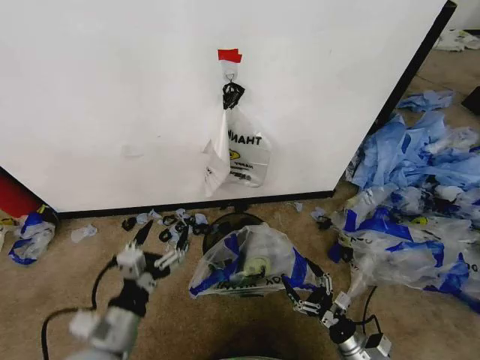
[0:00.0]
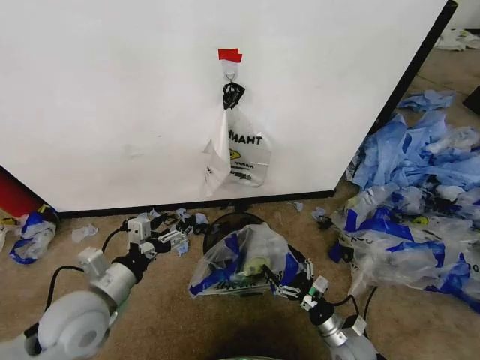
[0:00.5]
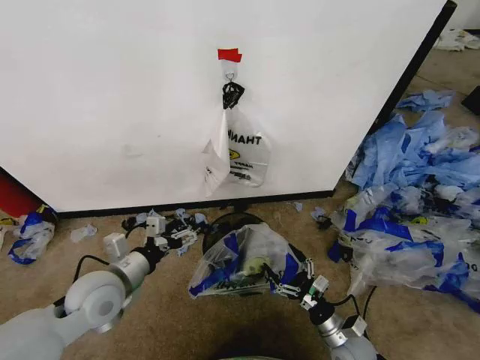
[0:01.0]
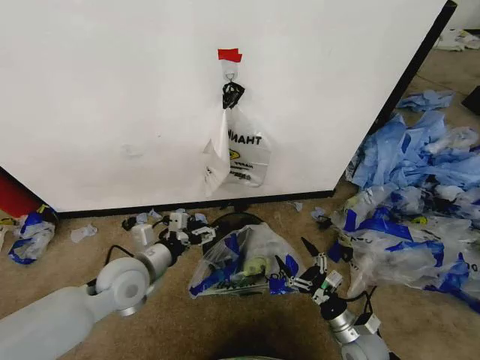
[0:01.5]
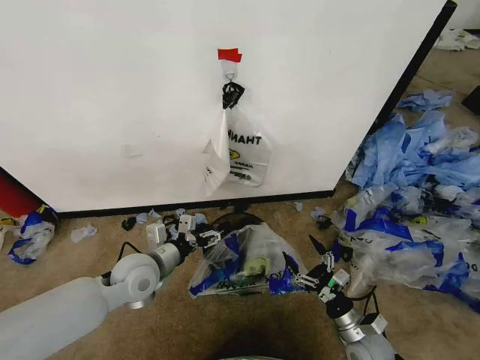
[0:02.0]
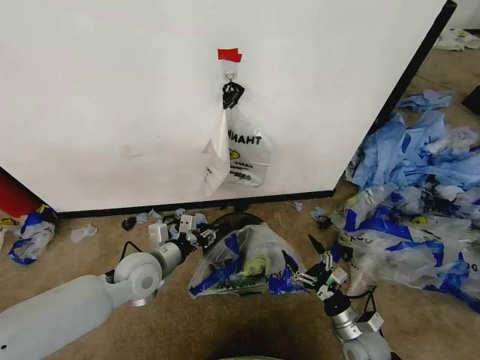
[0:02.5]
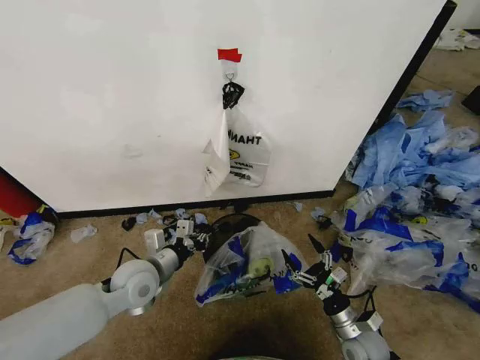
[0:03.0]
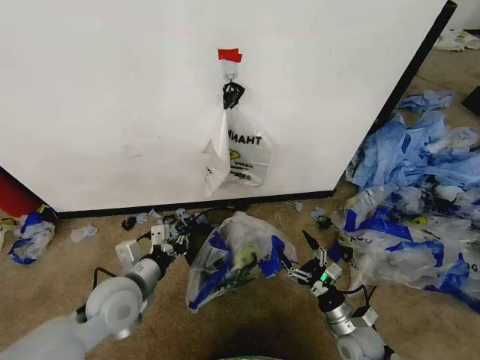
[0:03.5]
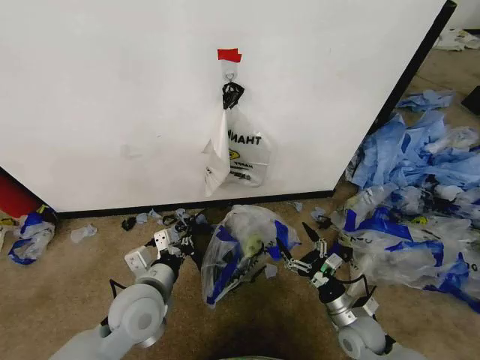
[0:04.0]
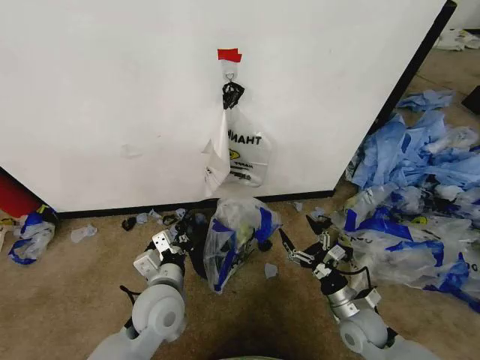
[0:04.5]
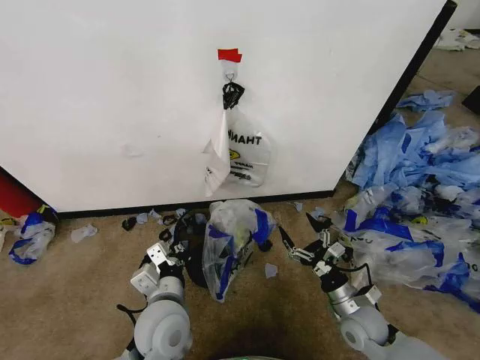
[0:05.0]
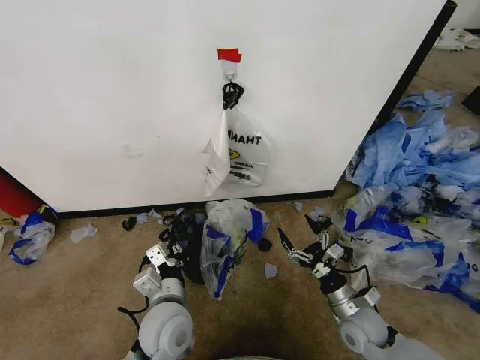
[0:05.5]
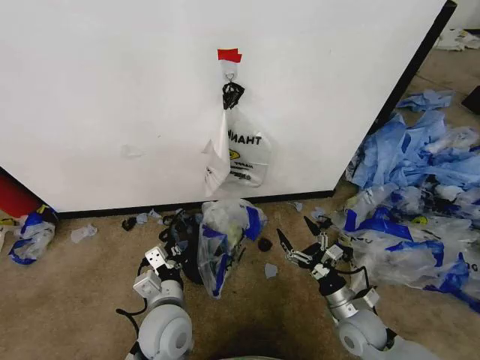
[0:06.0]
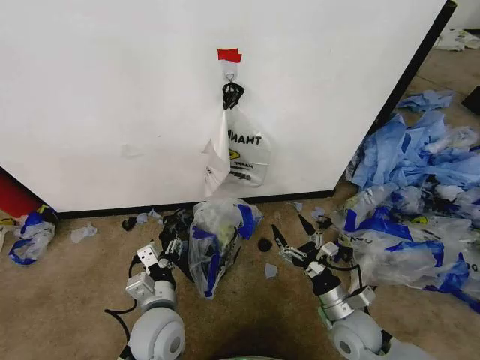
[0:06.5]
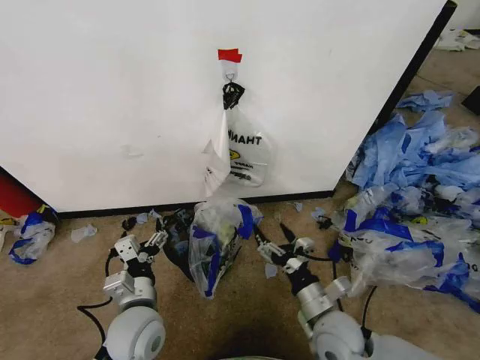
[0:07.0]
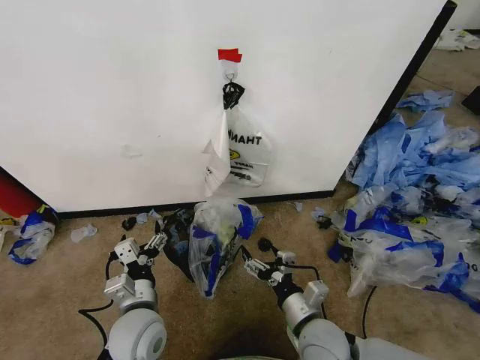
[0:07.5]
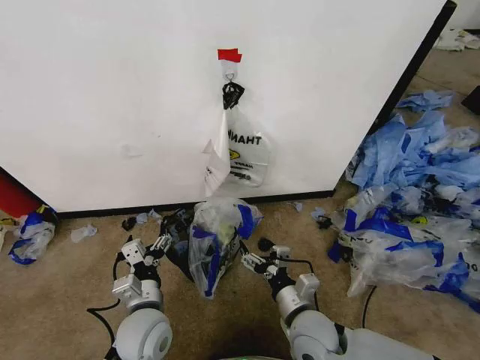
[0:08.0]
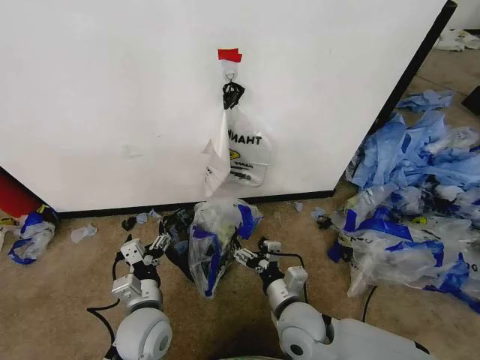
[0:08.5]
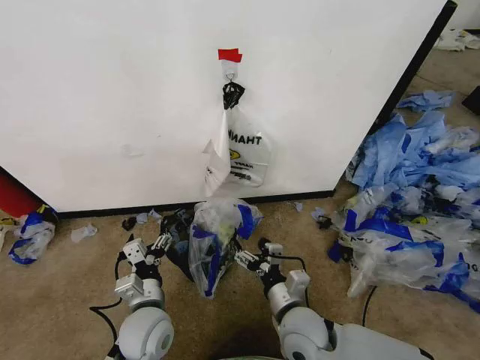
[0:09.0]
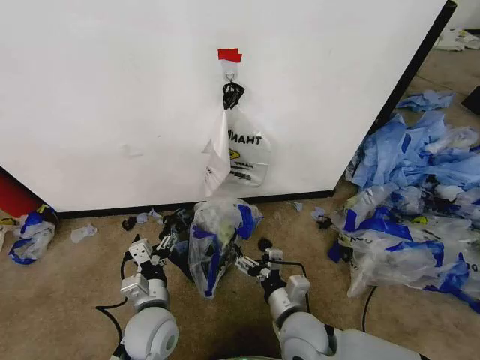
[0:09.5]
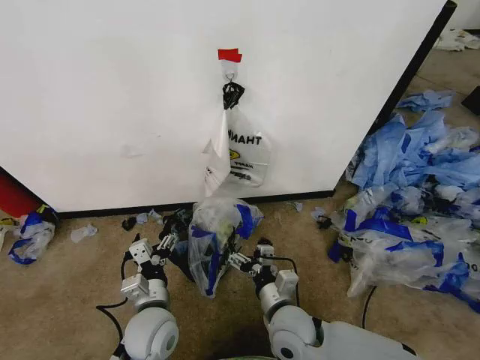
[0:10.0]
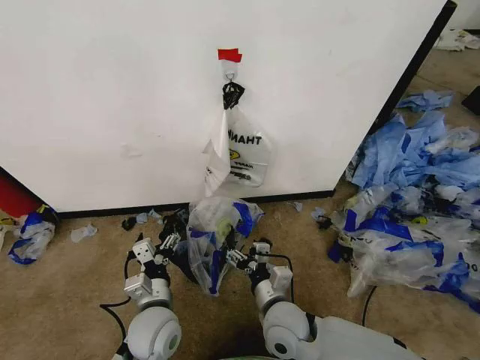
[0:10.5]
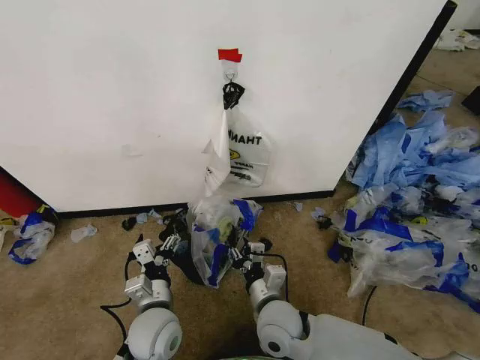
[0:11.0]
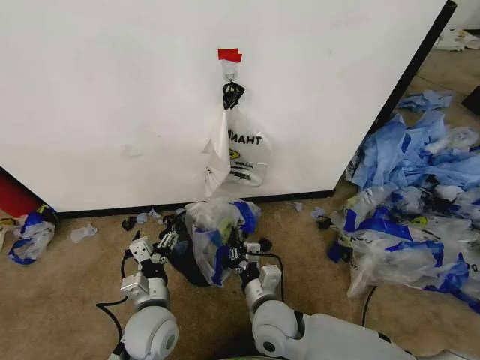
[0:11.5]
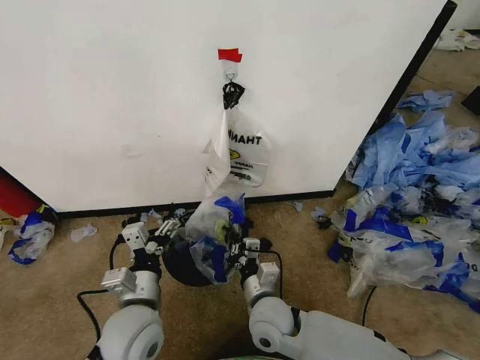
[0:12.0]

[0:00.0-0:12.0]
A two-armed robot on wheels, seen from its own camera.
Task of the whole recording: Pick up the garbage bag from the wall and place it over the trash bin.
0:00.0 to 0:02.0: The left gripper travels forward by approximately 20 cm. The right gripper shifts by approximately 5 cm.
0:02.0 to 0:04.0: The left gripper travels backward by some 10 cm, and closes.
0:04.0 to 0:06.0: The left gripper travels to the right by some 5 cm.
0:06.0 to 0:08.0: The right gripper goes approximately 15 cm to the left and upward; the left gripper opens.
0:08.0 to 0:10.0: The grippers make only small movements.
0:10.0 to 0:12.0: The left gripper shifts roughly 5 cm upward, while the right gripper closes.

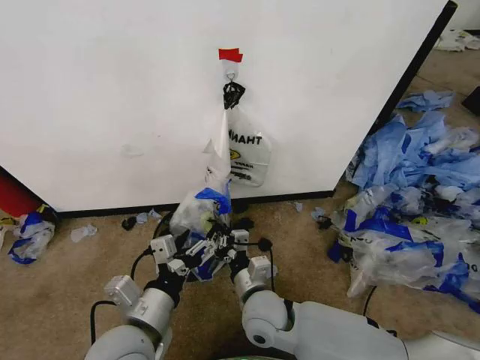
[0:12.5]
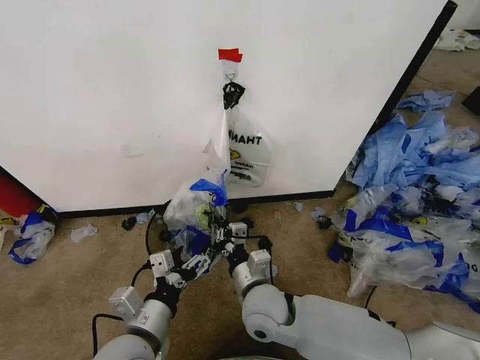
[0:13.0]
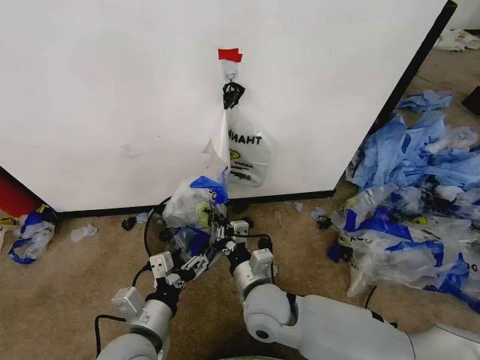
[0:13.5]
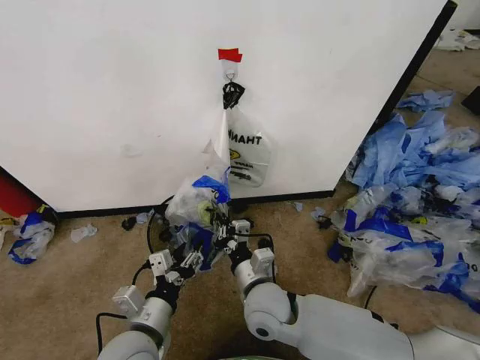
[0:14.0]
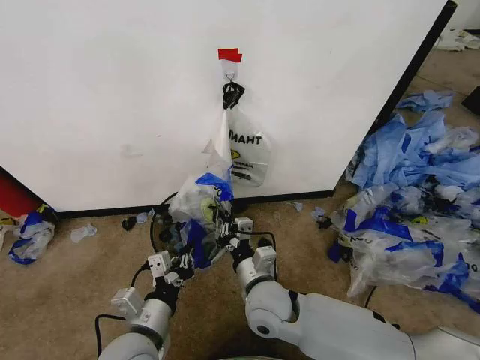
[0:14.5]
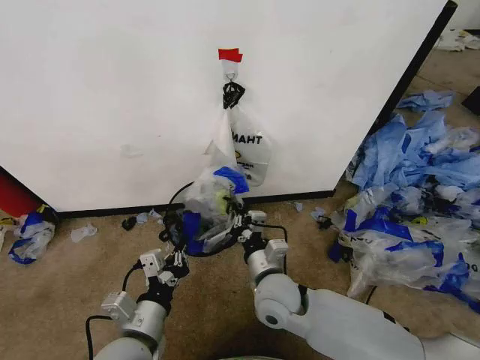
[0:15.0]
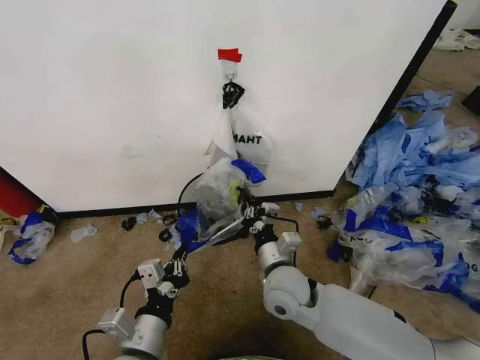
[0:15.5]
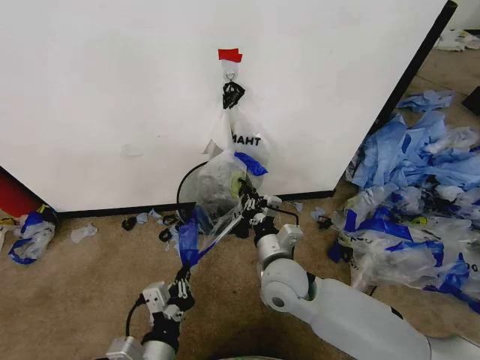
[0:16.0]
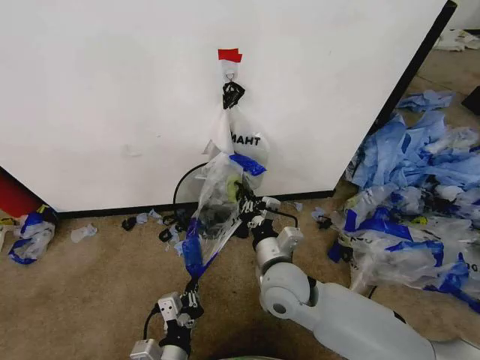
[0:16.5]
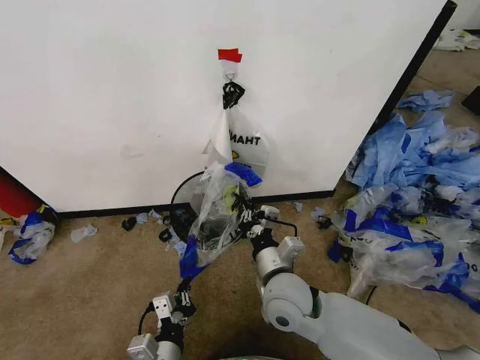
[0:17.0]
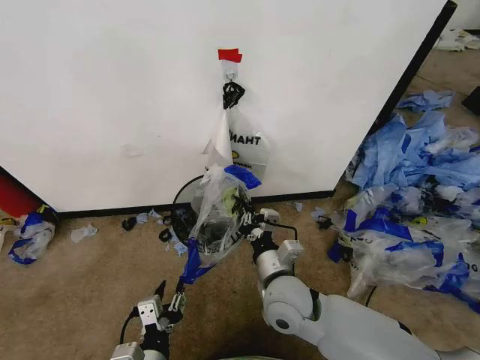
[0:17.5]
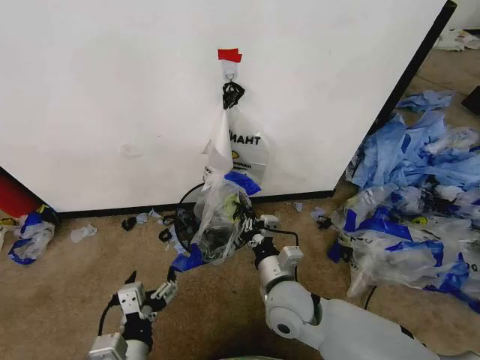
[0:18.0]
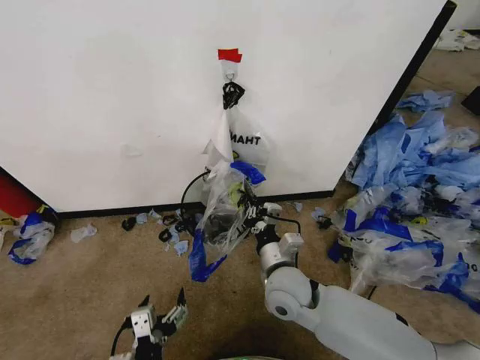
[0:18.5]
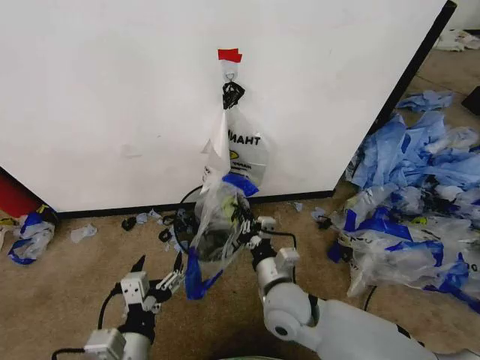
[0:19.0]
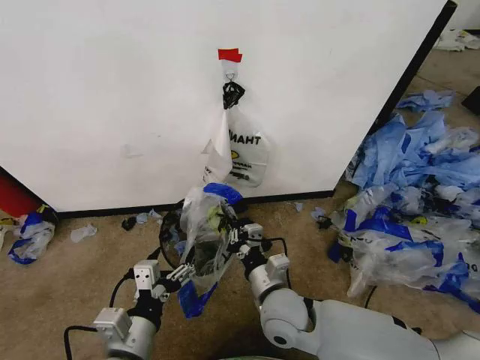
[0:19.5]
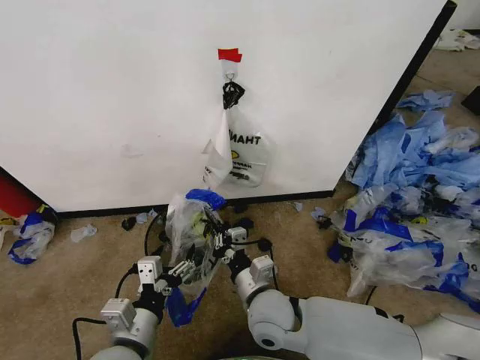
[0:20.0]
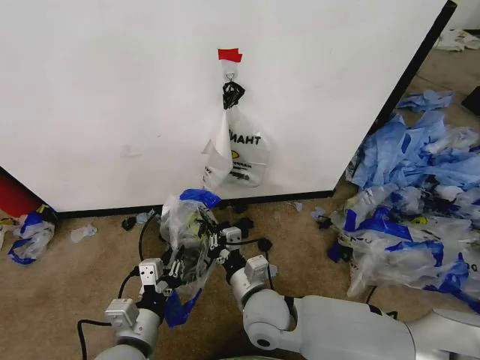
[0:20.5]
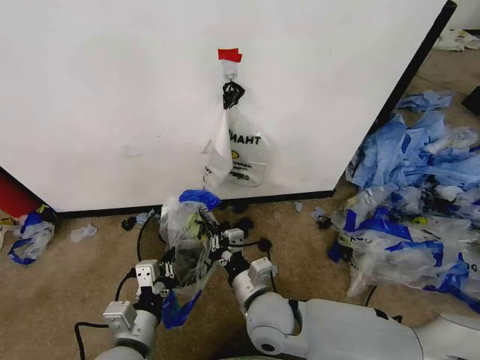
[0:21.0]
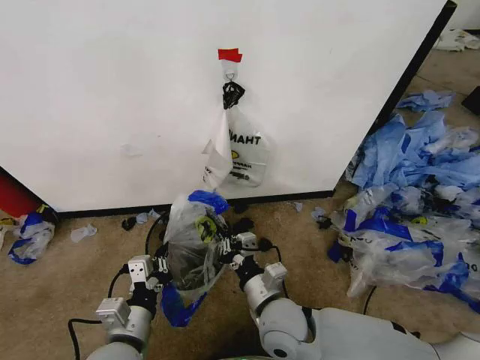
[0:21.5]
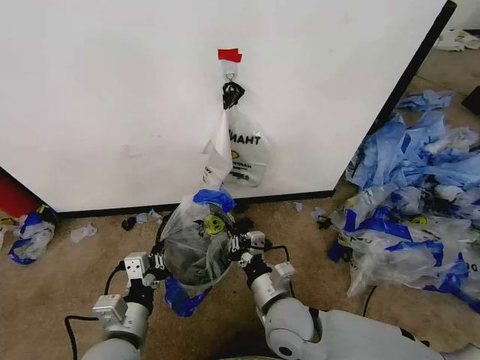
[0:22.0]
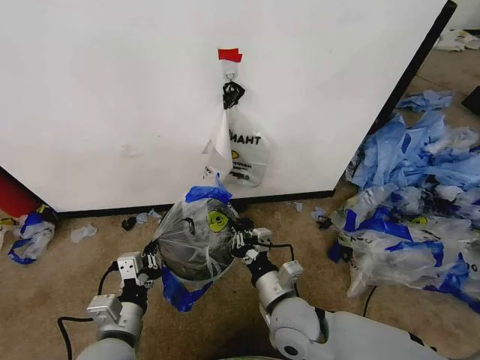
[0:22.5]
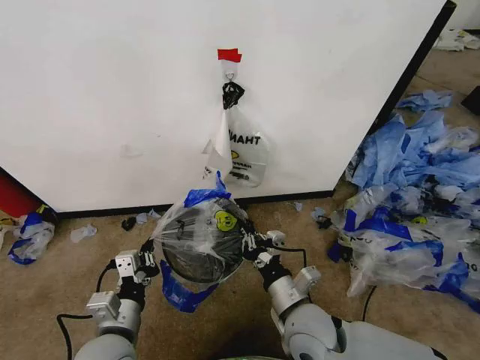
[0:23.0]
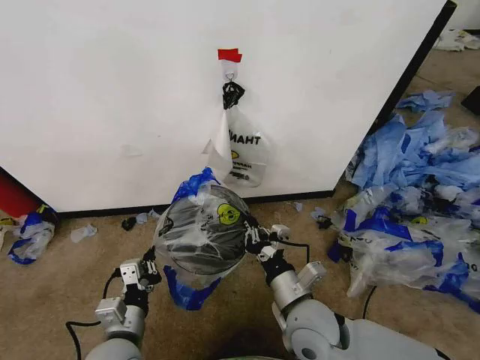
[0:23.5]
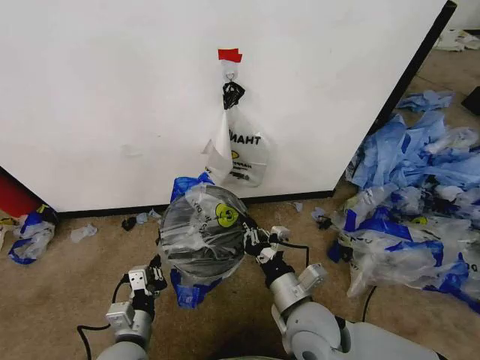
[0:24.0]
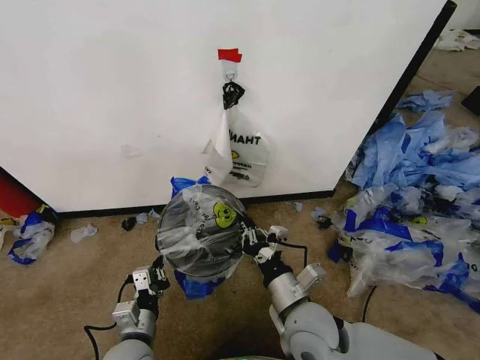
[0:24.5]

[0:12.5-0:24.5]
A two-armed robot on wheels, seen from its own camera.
Task of the whole recording: Pick up the garbage bag from the wall and place it over the trash bin.
0:12.5 to 0:14.5: The left gripper shifts roughly 5 cm downward, and closes up.
0:14.5 to 0:16.5: The right gripper changes place by some 5 cm. Meanwhile the left gripper heads downward and backward, covering approximately 10 cm.
0:16.5 to 0:18.5: The left gripper shifts by some 5 cm, and opens.
0:18.5 to 0:20.5: The right gripper ends up approximately 5 cm from where it was. The left gripper moves forward, approximately 10 cm, and closes up.
0:20.5 to 0:22.5: The left gripper closes, while the right gripper shifts some 5 cm to the right.
0:22.5 to 0:24.5: The left gripper is displaced downward by about 10 cm.

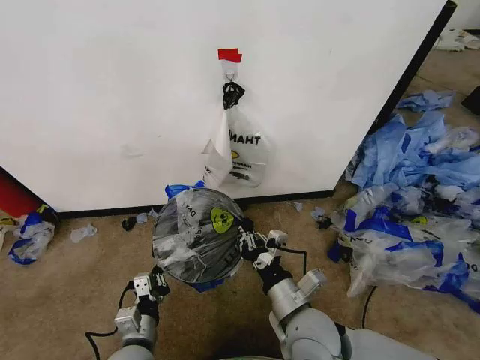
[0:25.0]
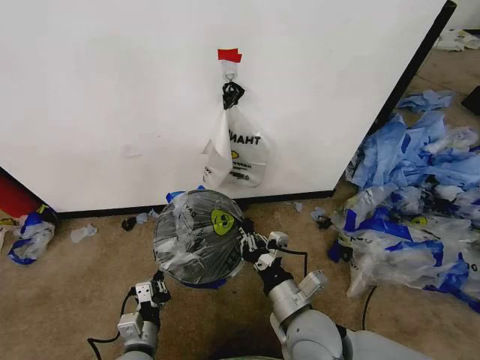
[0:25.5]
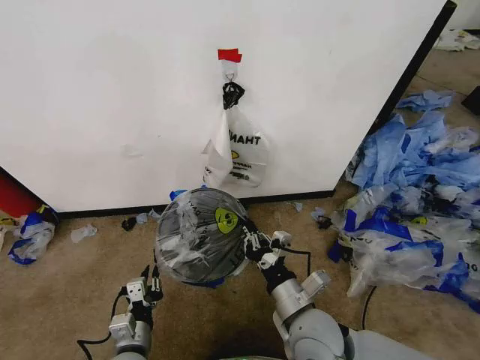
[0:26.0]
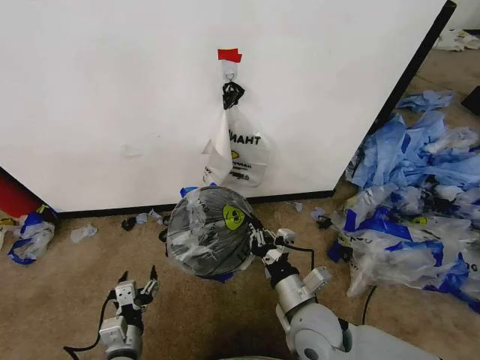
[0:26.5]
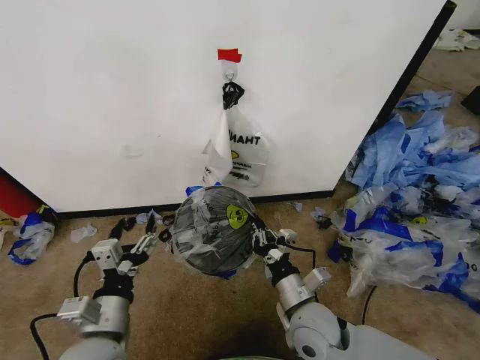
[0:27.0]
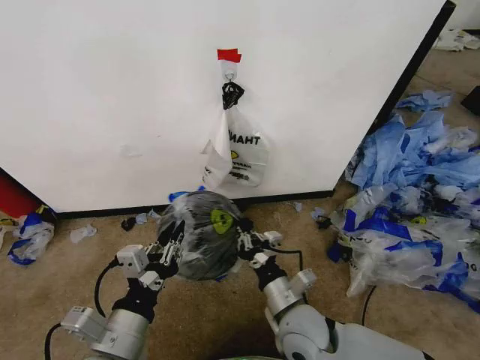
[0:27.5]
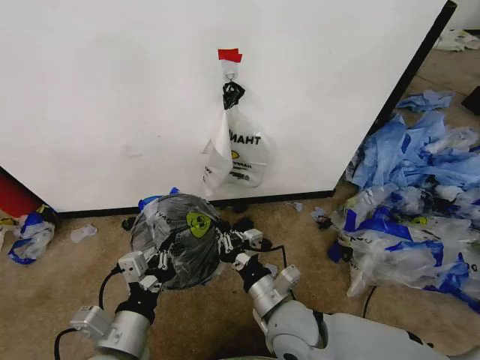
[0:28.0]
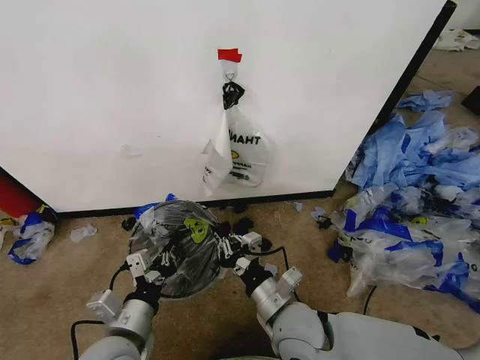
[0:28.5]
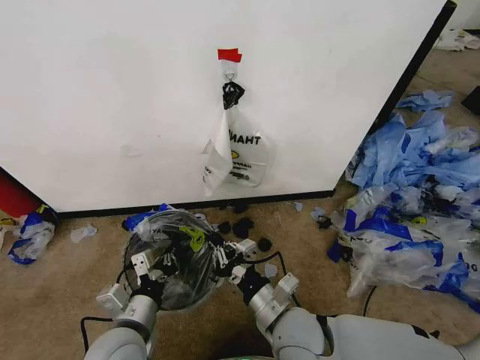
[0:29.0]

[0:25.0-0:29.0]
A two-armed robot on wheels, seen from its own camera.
Task of the whole recording: Pick up the garbage bag from the wall and place it over the trash bin.
0:25.0 to 0:27.0: The left gripper is displaced upward by about 15 cm, and opens.
0:27.0 to 0:29.0: The left gripper closes.
